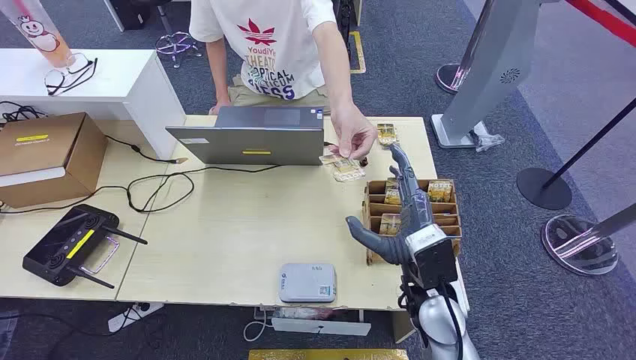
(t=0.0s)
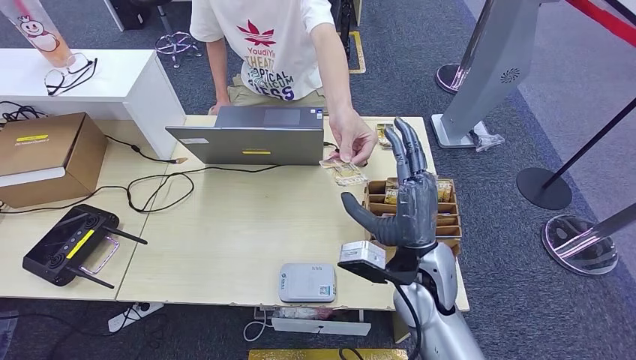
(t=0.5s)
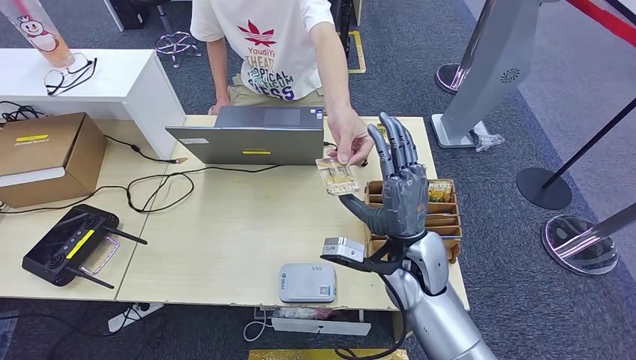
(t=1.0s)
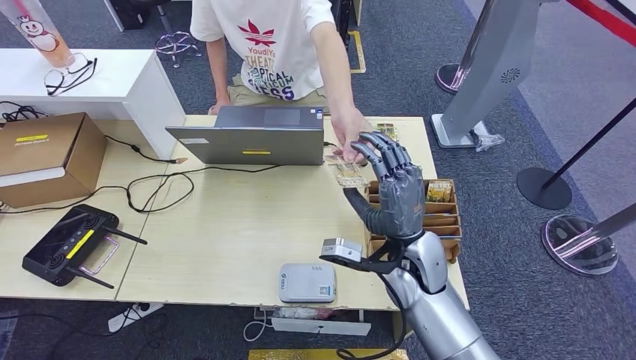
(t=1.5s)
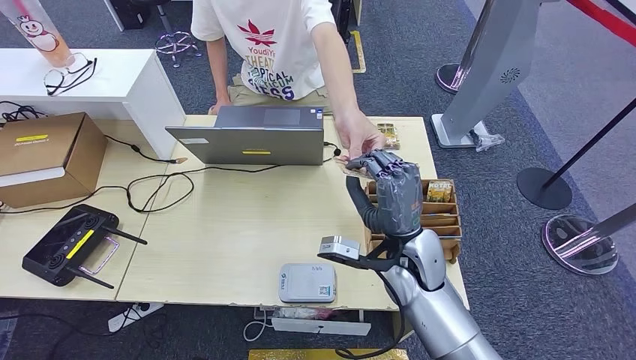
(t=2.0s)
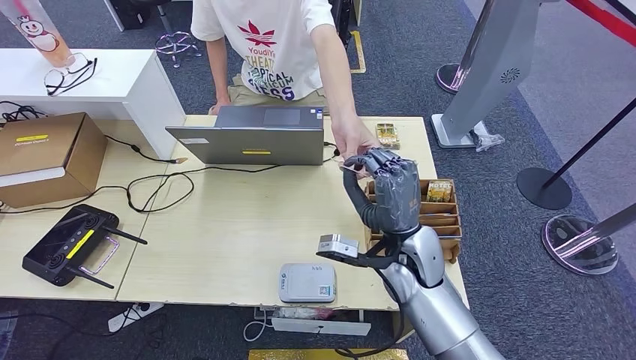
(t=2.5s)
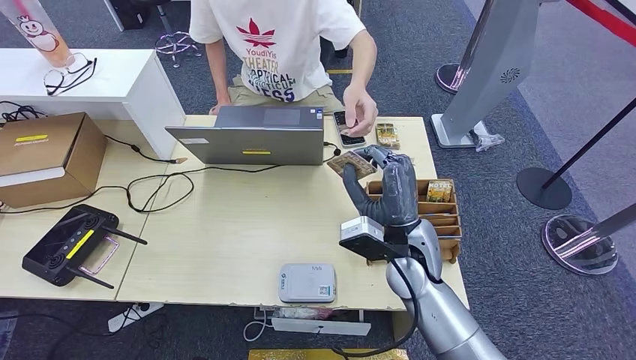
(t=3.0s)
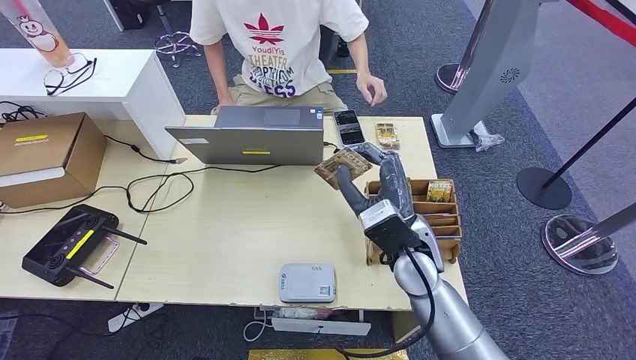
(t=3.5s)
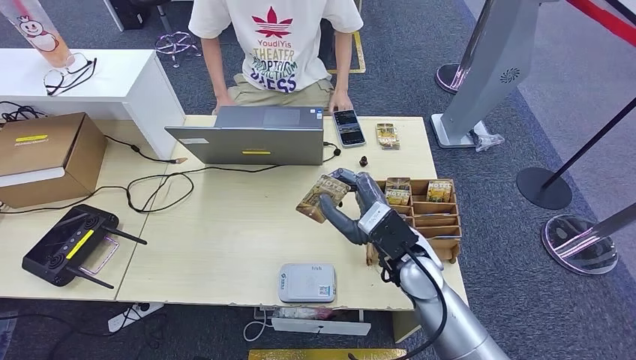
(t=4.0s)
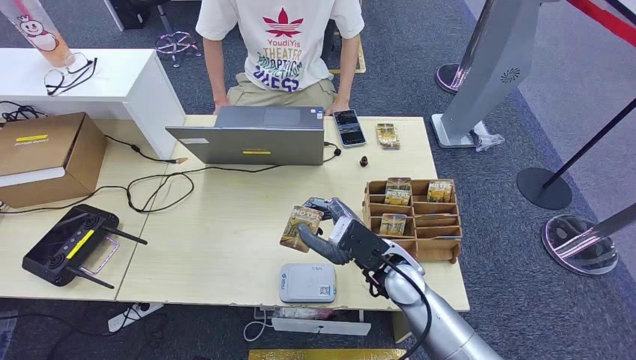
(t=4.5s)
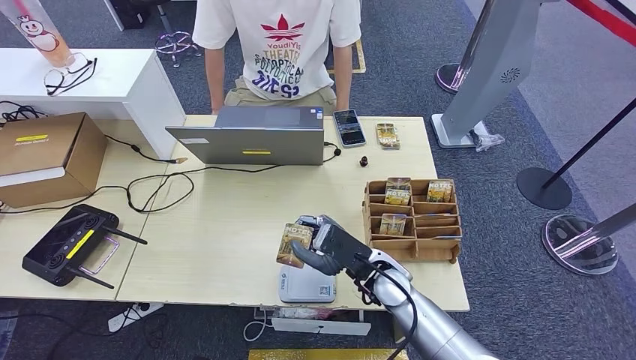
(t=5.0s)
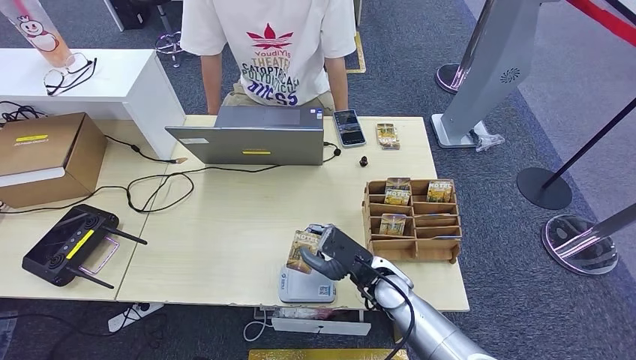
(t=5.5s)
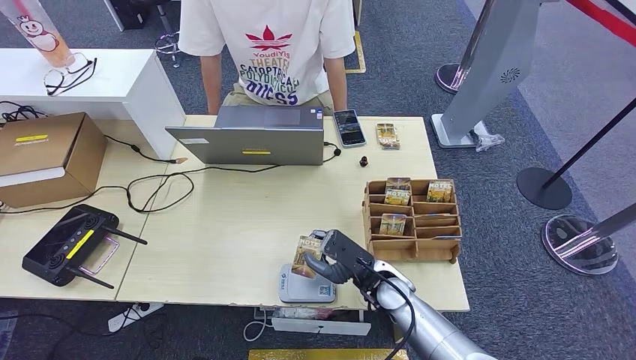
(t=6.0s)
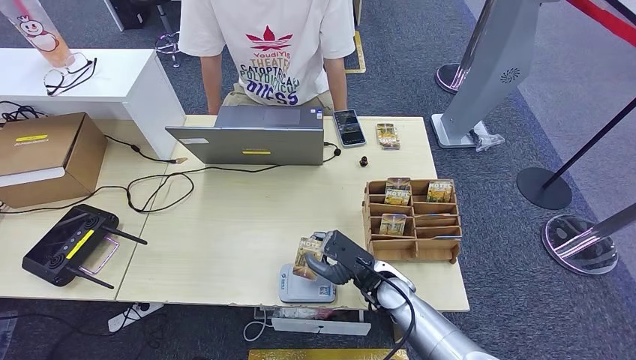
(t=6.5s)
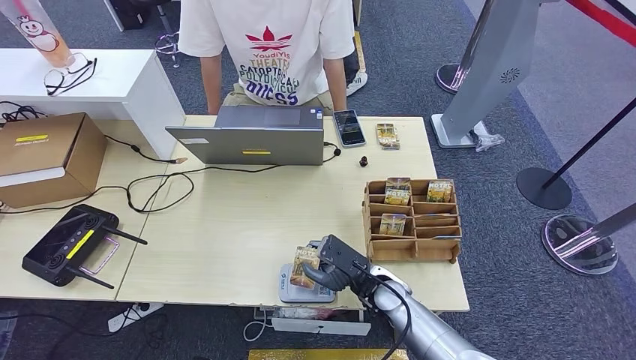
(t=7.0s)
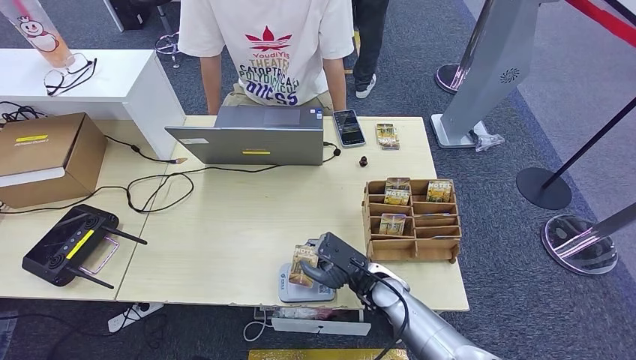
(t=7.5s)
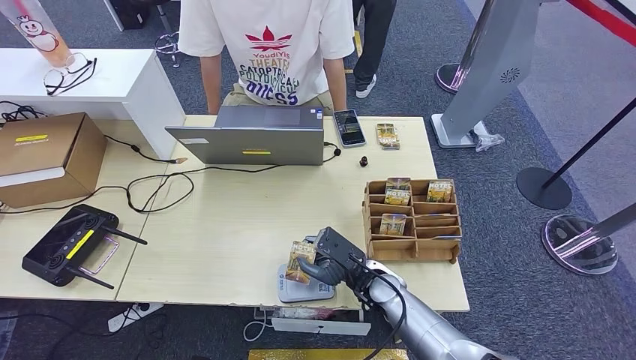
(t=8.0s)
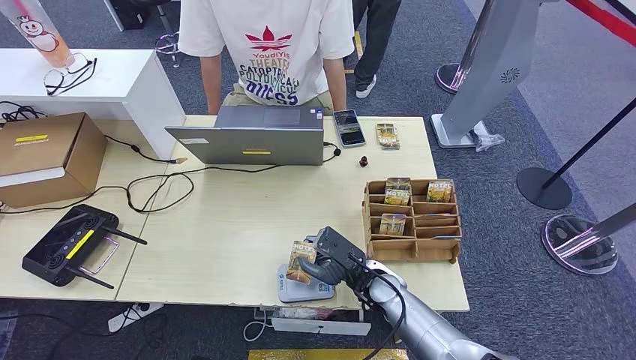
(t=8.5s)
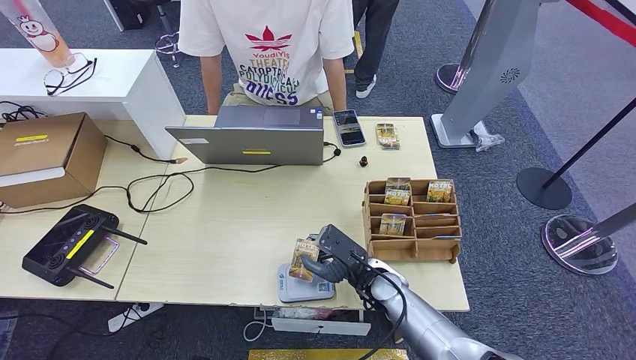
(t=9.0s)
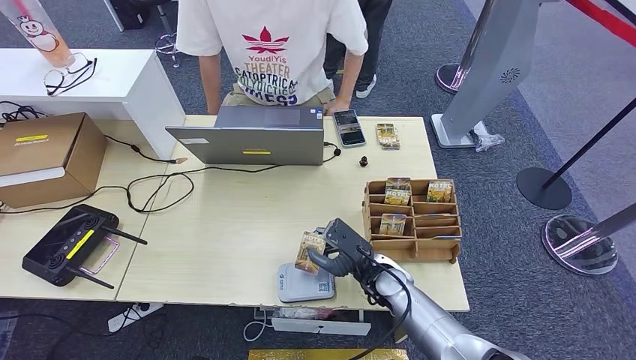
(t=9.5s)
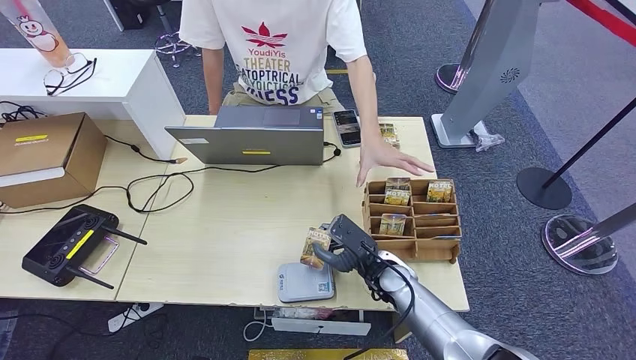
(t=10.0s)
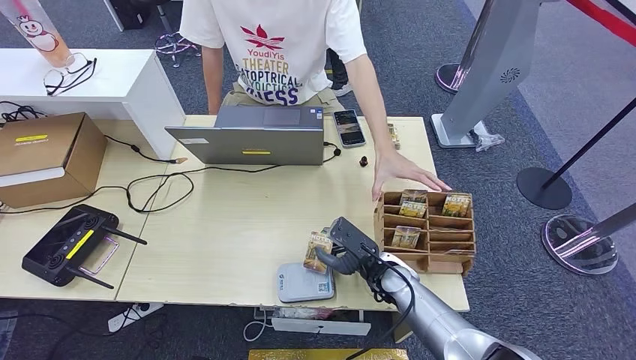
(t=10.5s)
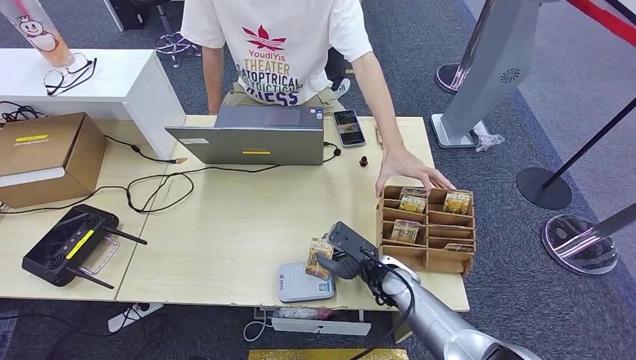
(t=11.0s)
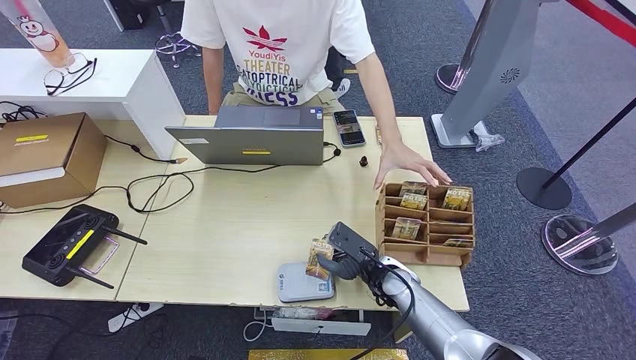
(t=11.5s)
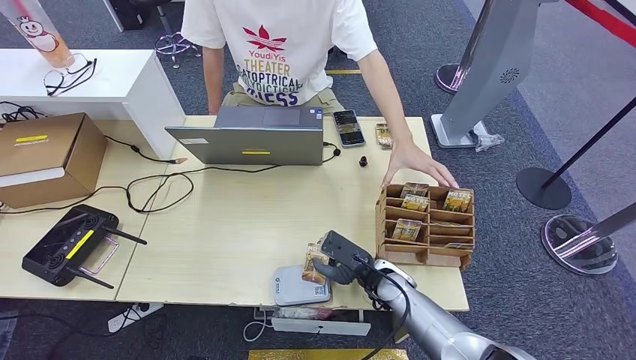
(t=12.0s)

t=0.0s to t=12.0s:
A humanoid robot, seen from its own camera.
Step, t=0.0s to t=2.0s: Take the ID card from the person's hand.
t=4.0s to t=6.0s: The right hand goes approximately 10 cm downward.
t=6.0s to t=12.0s: The hands move only a little.

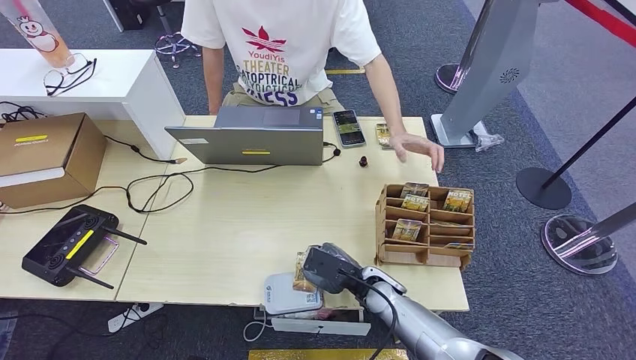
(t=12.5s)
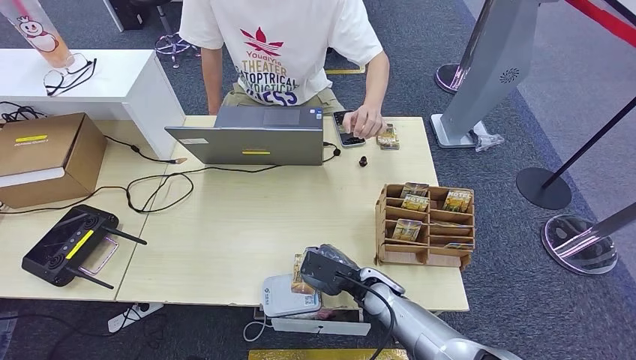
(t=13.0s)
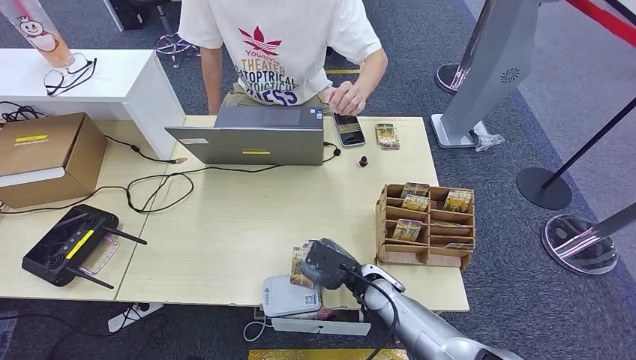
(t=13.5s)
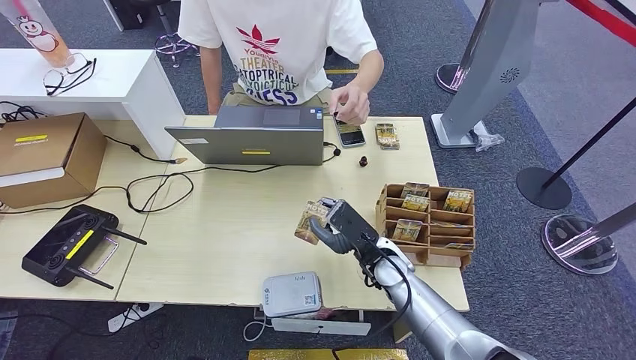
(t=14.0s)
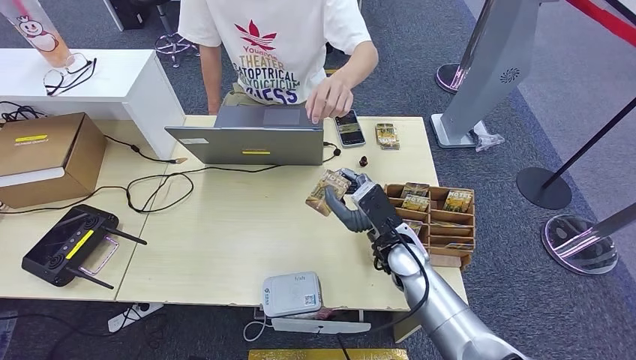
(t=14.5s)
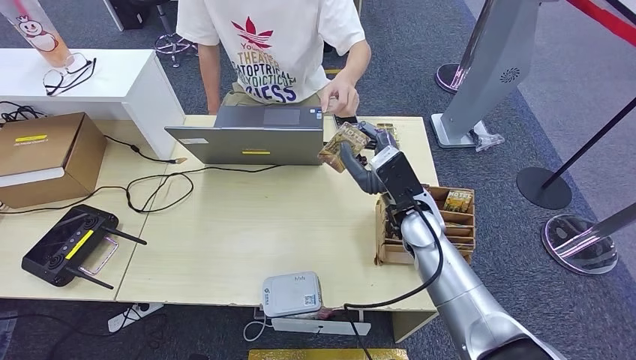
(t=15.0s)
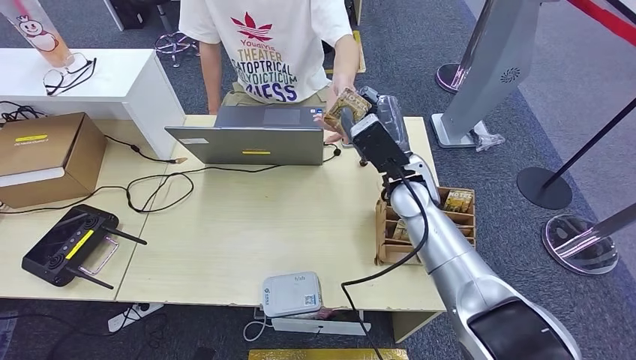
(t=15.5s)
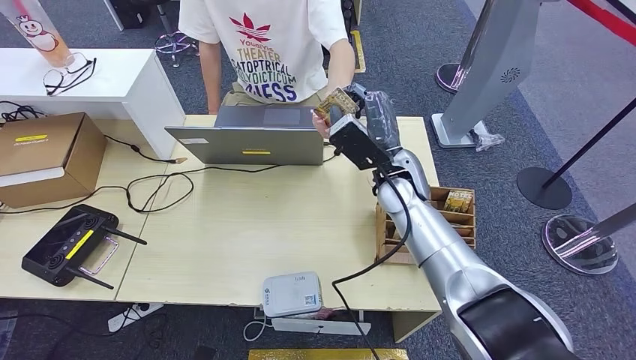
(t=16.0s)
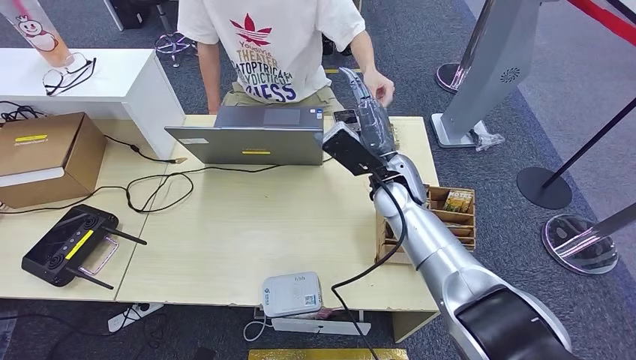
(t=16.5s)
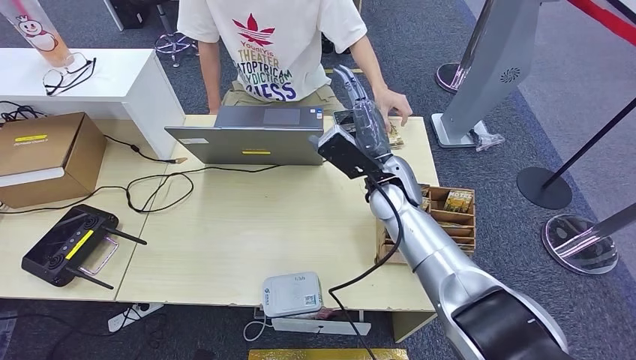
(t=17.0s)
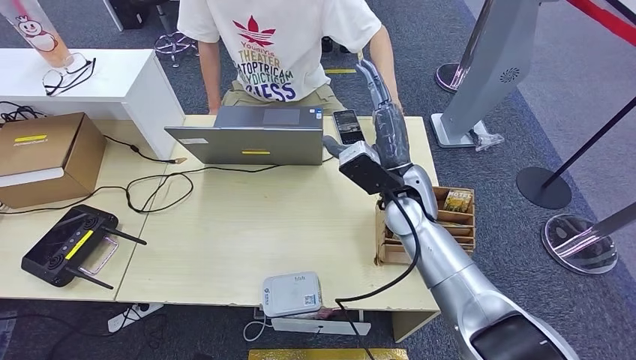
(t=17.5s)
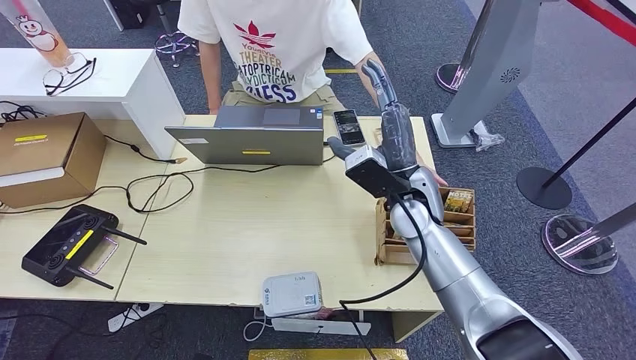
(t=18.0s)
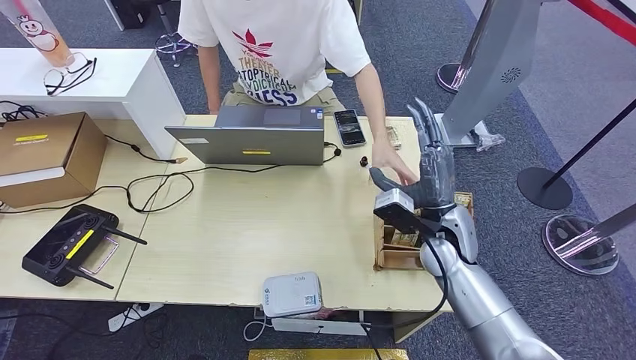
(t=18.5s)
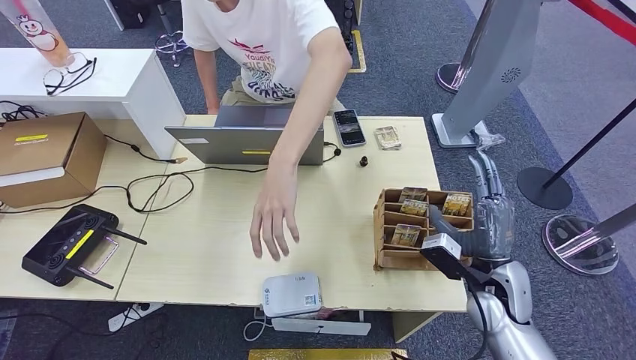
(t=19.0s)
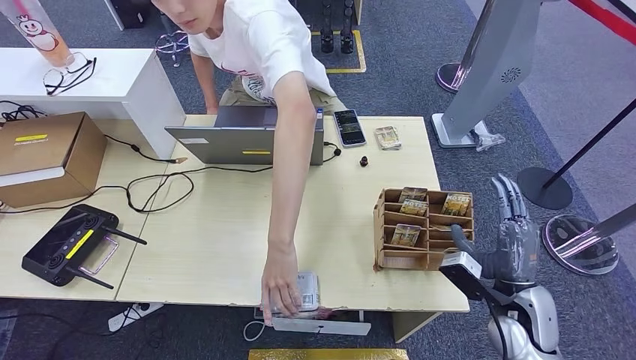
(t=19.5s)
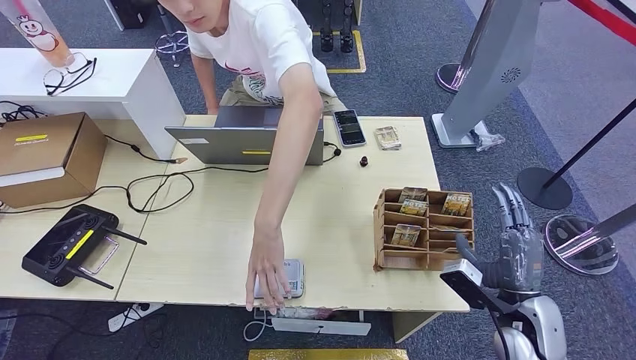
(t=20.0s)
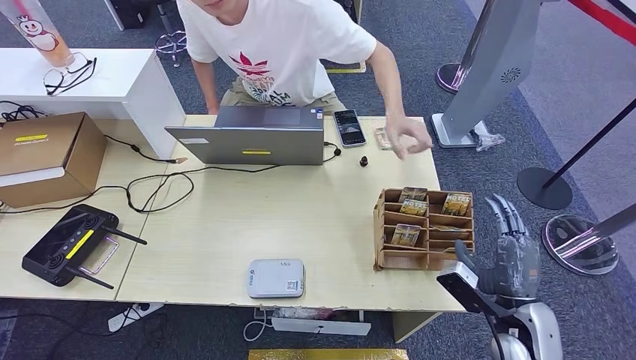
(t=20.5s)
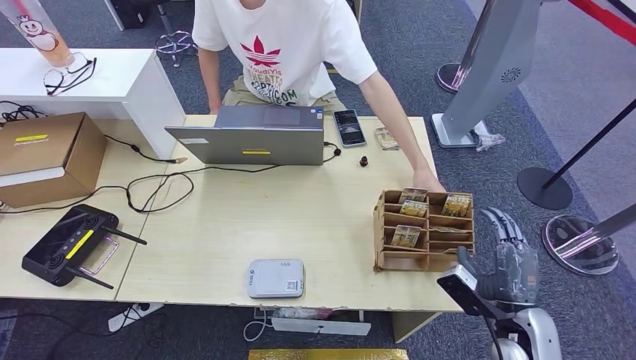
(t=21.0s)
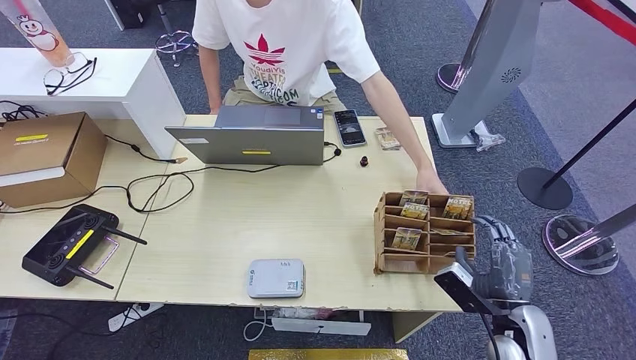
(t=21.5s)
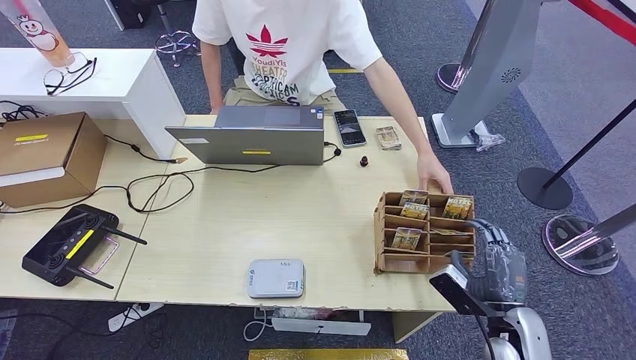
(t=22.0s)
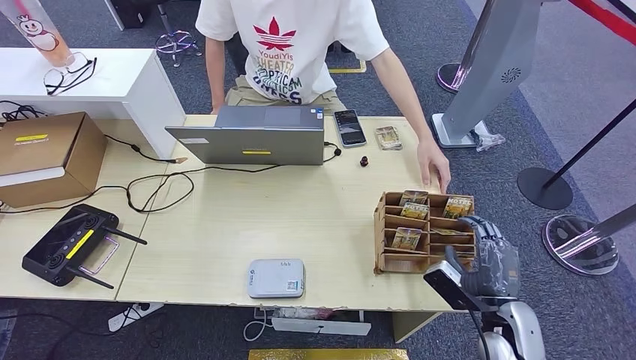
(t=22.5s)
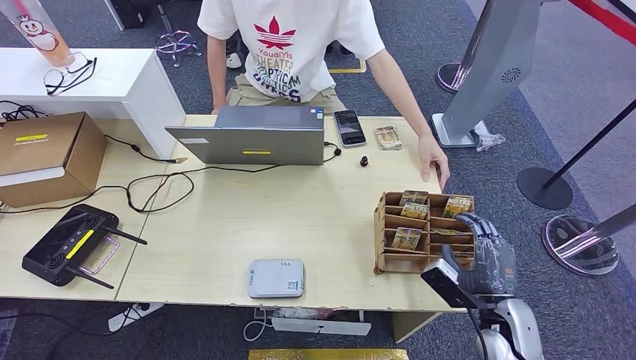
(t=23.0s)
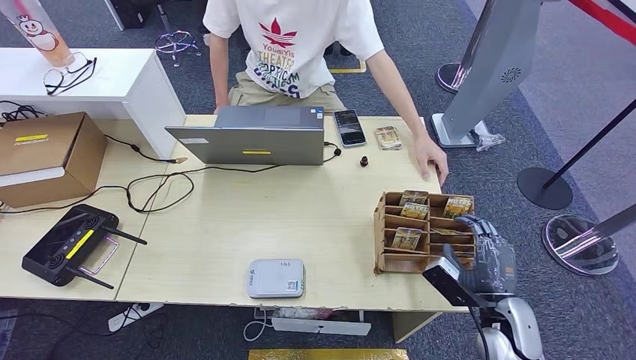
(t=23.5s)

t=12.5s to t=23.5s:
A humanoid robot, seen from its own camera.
Step, t=13.0s to t=16.5s: Hand the ID card to the person.
t=12.5s to t=14.5s: The right hand heads upward, covering some 10 cm.
t=14.5s to t=16.0s: The right hand shifts about 15 cm upward and forward.
t=16.0s to t=18.0s: There are only small adjustments of the hands.
t=20.0s to t=23.5s: The hands stay close to where they were, moving slightly.
